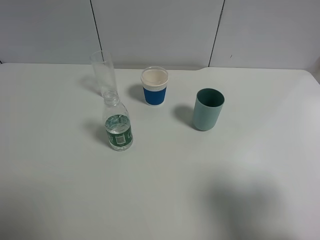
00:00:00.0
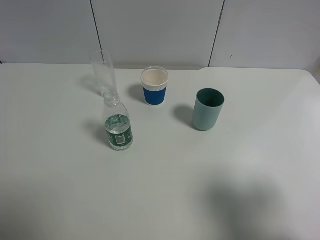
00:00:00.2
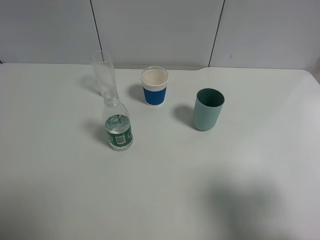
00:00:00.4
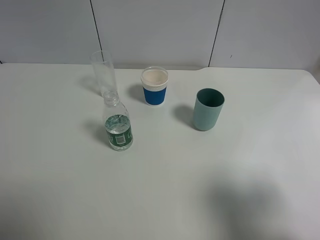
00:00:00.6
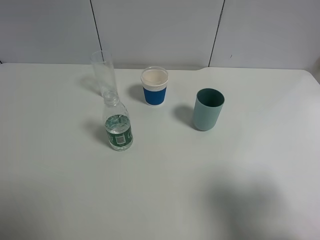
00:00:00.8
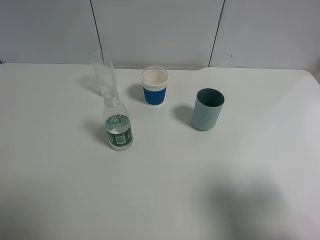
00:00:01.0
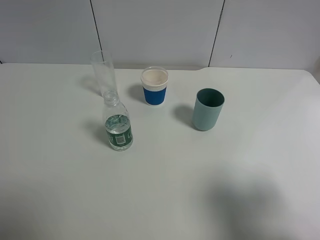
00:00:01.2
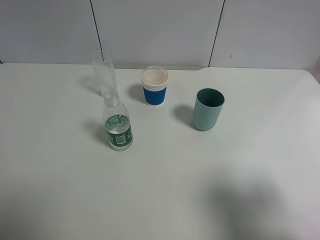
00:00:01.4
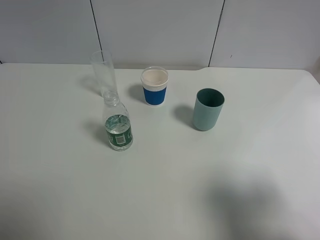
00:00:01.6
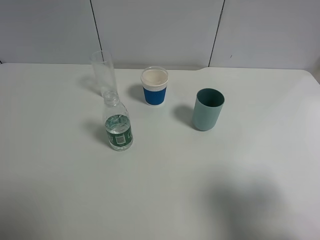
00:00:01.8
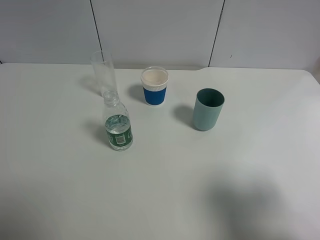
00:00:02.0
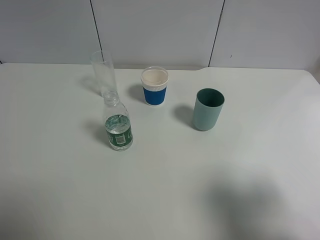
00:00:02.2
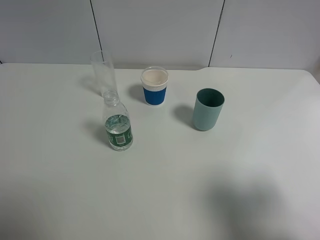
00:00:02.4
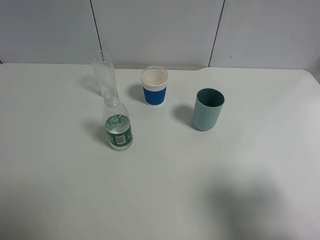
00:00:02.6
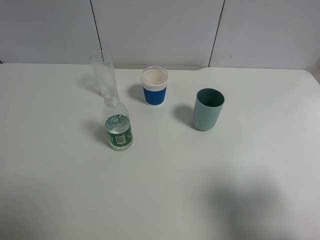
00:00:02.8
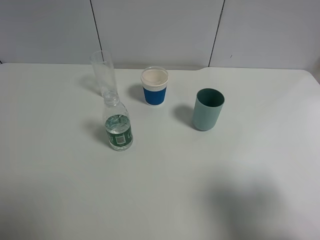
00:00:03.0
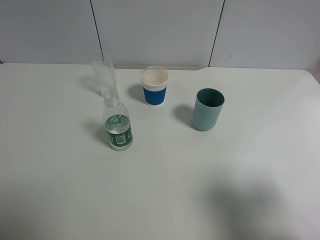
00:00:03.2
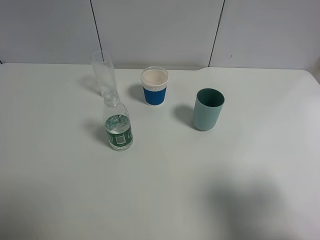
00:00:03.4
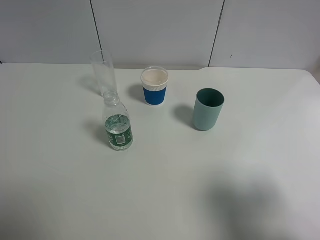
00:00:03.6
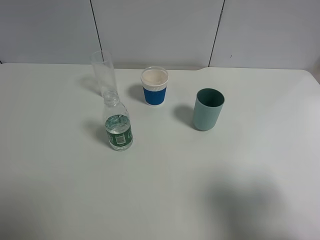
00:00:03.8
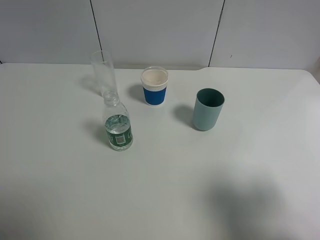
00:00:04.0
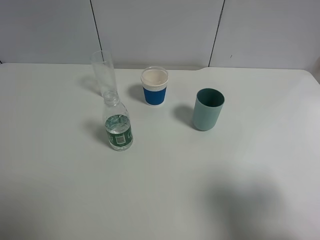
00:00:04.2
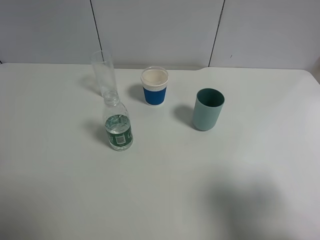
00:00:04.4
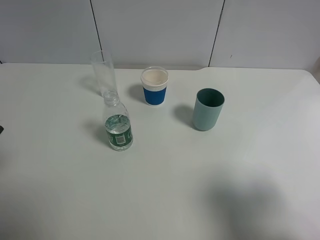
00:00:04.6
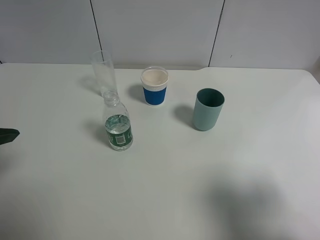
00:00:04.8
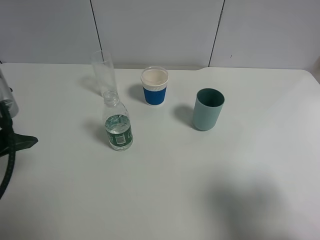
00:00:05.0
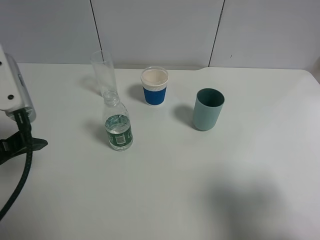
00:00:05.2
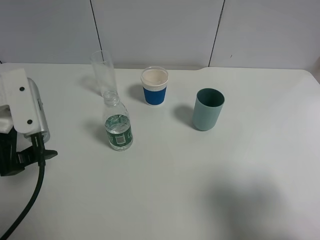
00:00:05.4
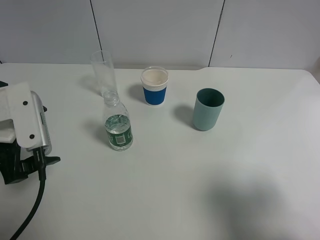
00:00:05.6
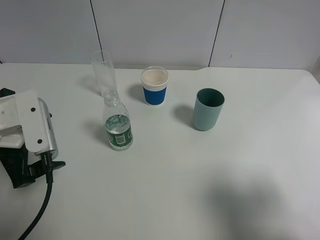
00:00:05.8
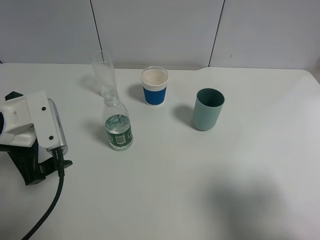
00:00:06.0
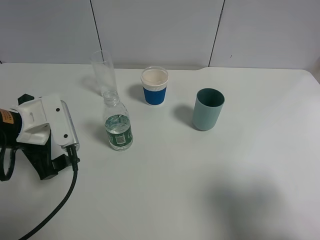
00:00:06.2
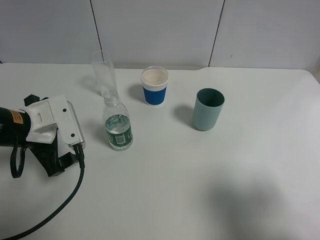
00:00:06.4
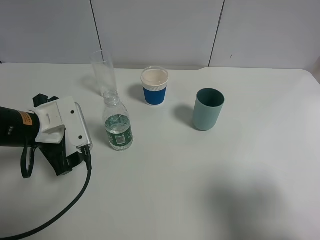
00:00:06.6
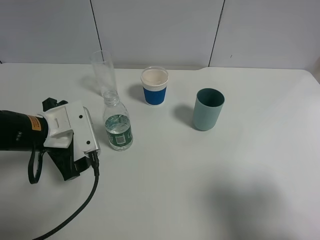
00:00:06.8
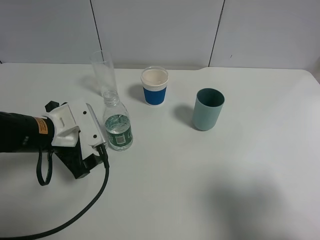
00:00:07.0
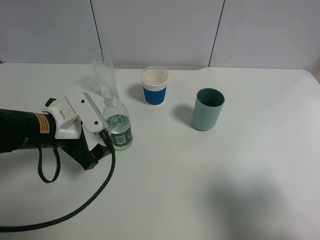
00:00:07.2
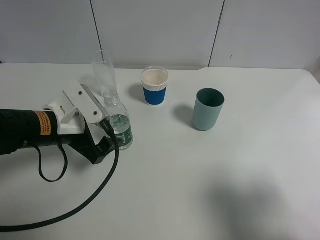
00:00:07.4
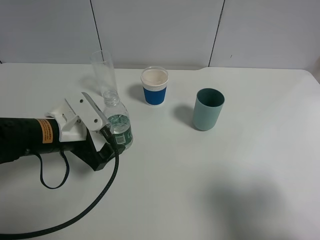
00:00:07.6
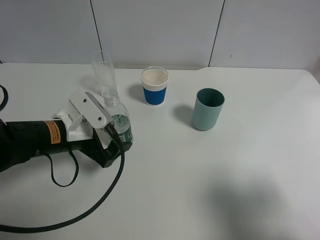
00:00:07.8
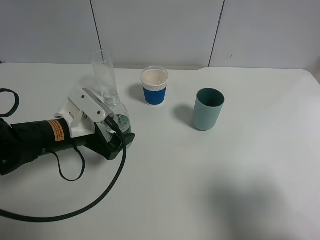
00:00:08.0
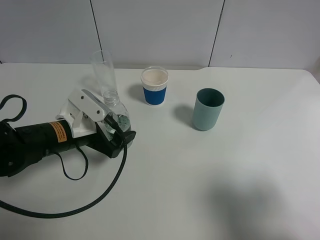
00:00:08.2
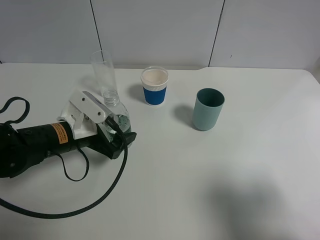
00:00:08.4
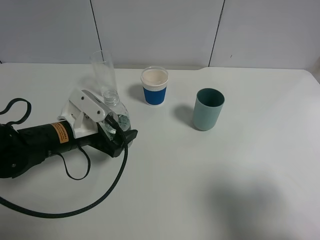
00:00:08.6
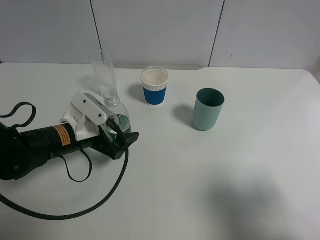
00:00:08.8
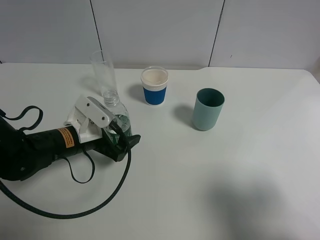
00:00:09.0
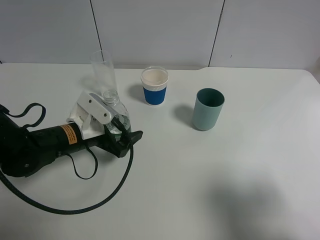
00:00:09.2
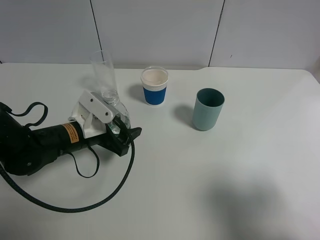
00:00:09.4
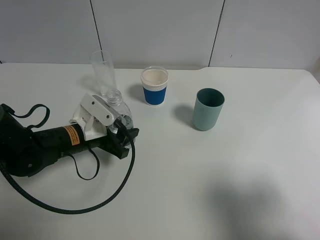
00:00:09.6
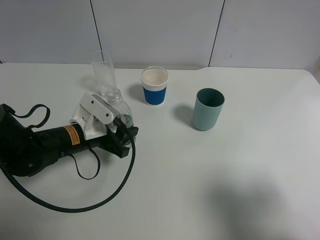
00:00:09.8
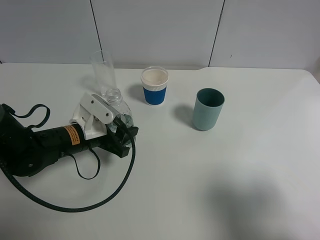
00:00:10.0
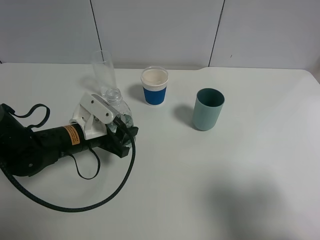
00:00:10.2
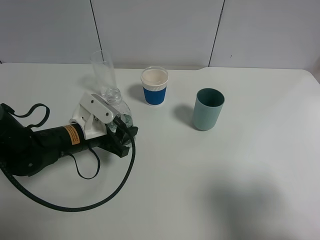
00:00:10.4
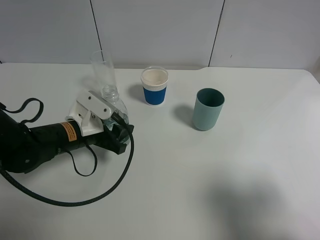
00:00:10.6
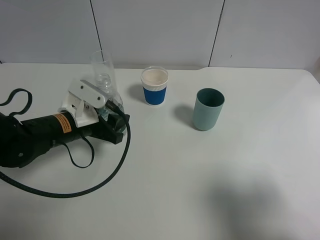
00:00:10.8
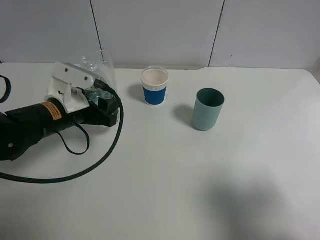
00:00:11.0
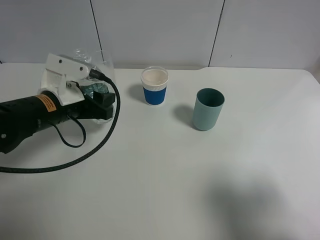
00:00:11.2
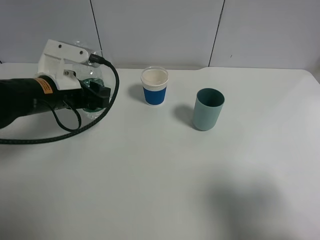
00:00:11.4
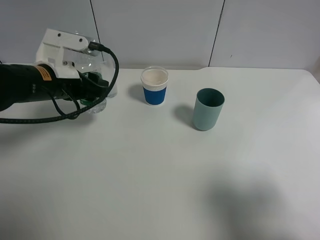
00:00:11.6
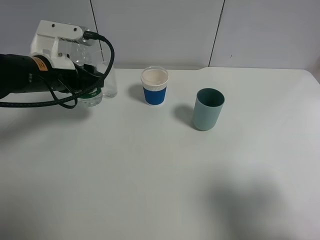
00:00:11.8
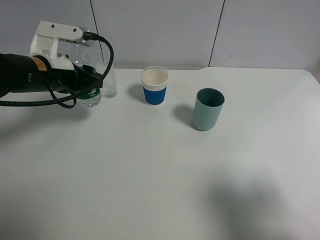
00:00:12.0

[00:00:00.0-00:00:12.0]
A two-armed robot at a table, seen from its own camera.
Task of the whole recording: use a gripper to hold the bottle of the drink and pour it into a random cup.
Step, 00:00:00.0 to 00:00:09.6: Grasp the mineral water bottle with the left gripper.
00:00:00.0 to 00:00:03.0: The two grippers keep their place.
00:00:04.4 to 00:00:06.0: The left gripper goes about 15 cm downward, forward and to the right.
00:00:06.0 to 00:00:07.6: The left gripper travels to the right by approximately 5 cm.
00:00:07.6 to 00:00:09.0: The left gripper ends up some 5 cm from where it was.
00:00:09.0 to 00:00:10.4: The left gripper closes its fingers.
00:00:10.4 to 00:00:12.0: The left gripper shifts some 10 cm upward and forward.

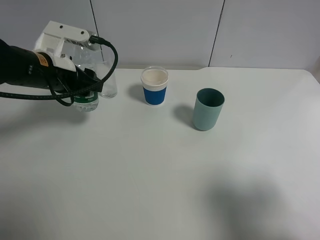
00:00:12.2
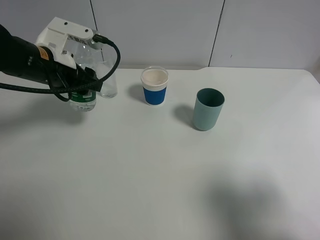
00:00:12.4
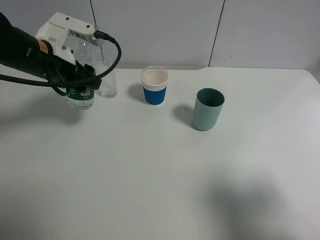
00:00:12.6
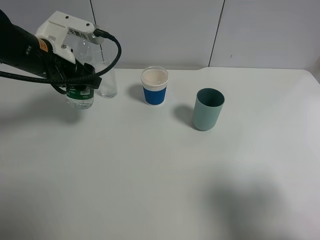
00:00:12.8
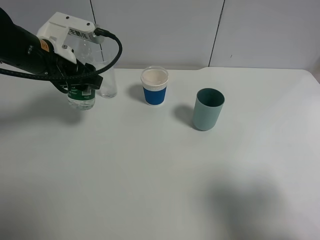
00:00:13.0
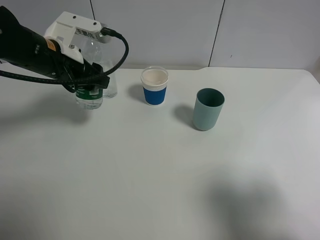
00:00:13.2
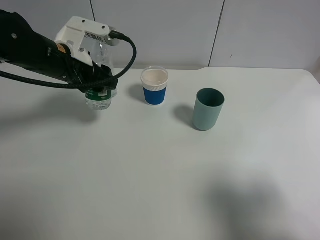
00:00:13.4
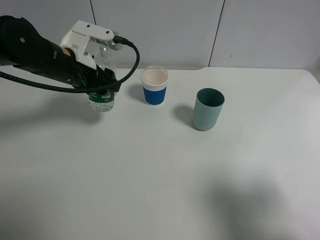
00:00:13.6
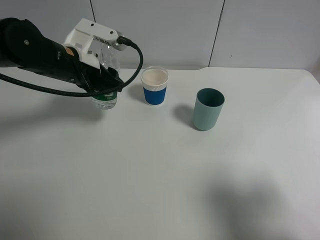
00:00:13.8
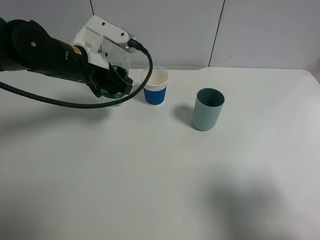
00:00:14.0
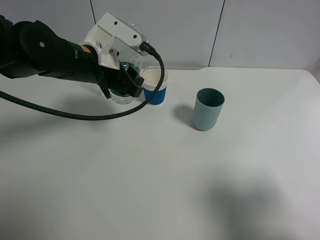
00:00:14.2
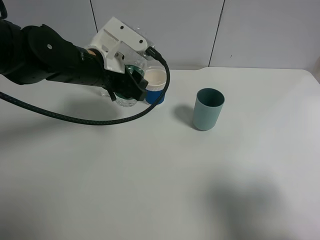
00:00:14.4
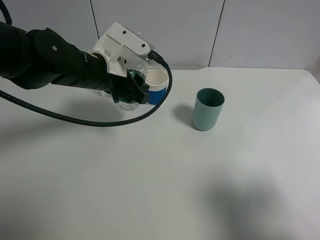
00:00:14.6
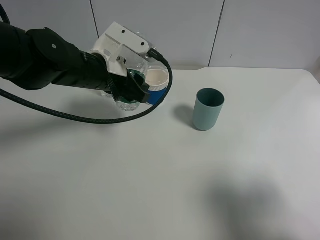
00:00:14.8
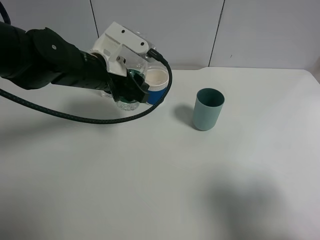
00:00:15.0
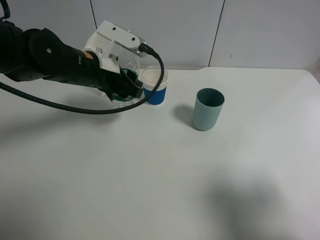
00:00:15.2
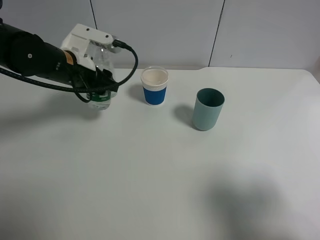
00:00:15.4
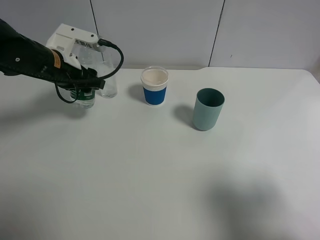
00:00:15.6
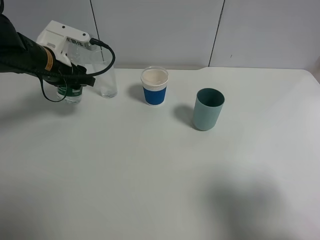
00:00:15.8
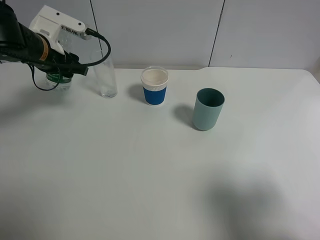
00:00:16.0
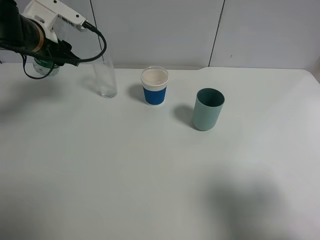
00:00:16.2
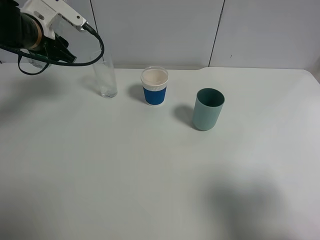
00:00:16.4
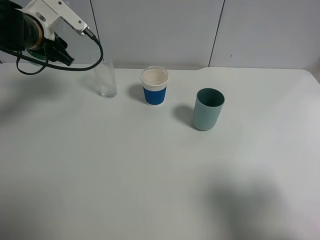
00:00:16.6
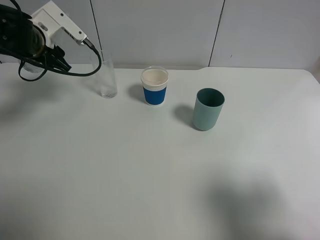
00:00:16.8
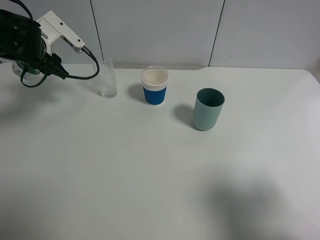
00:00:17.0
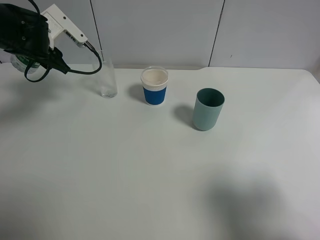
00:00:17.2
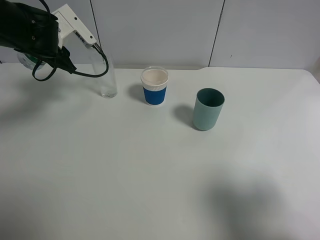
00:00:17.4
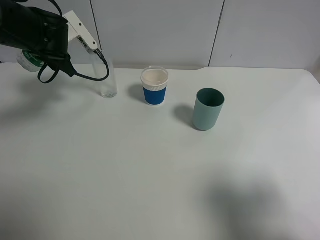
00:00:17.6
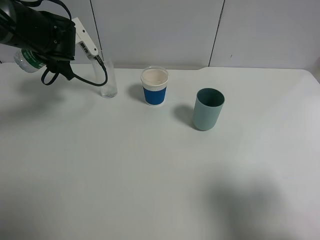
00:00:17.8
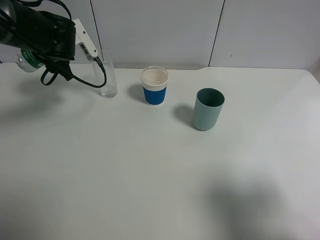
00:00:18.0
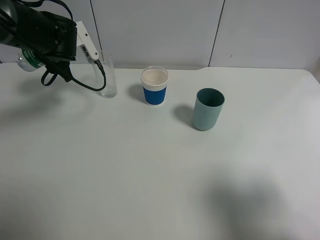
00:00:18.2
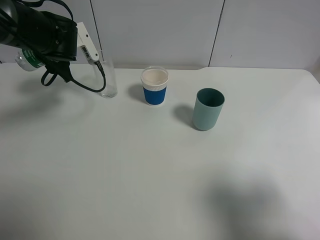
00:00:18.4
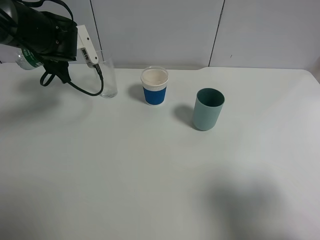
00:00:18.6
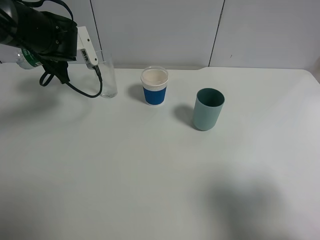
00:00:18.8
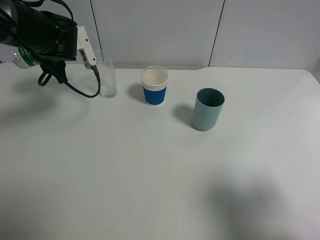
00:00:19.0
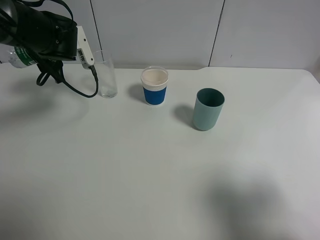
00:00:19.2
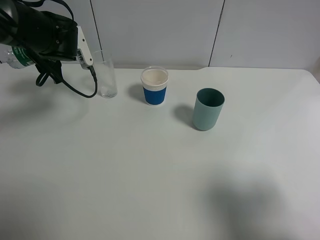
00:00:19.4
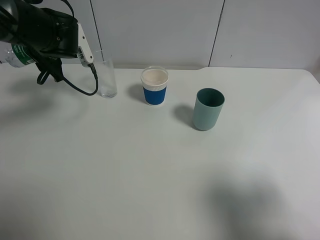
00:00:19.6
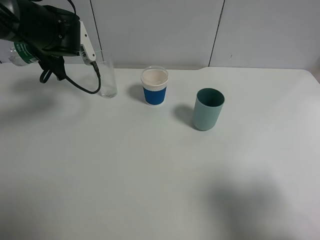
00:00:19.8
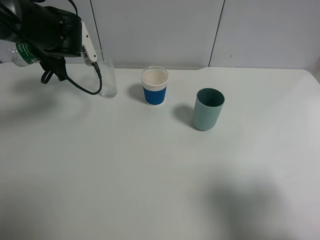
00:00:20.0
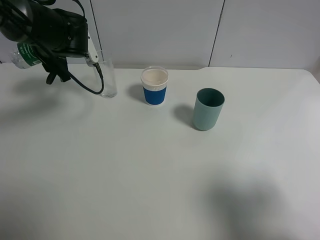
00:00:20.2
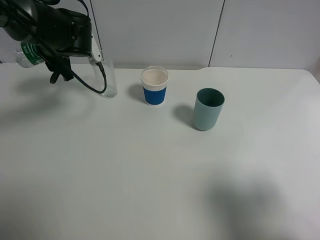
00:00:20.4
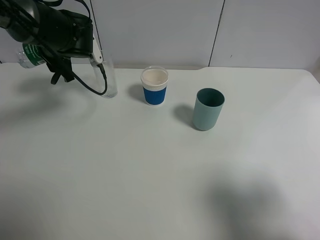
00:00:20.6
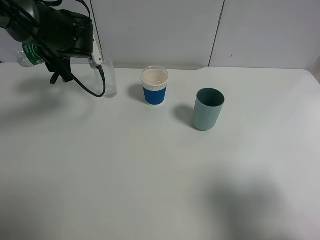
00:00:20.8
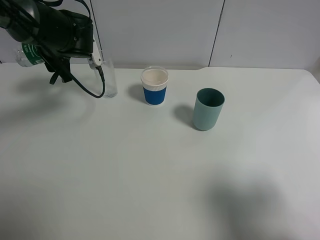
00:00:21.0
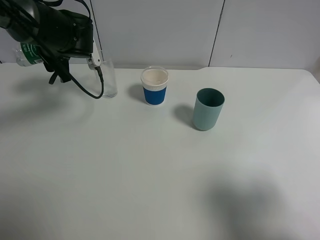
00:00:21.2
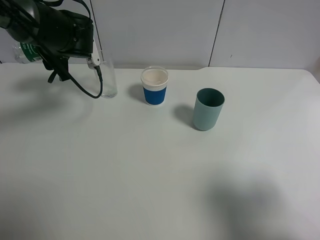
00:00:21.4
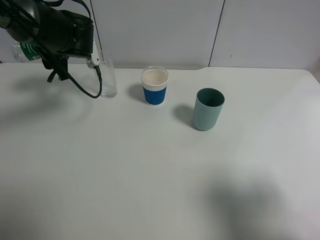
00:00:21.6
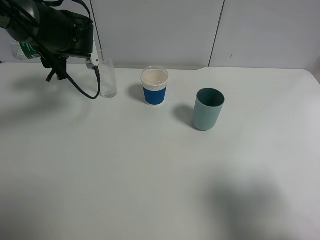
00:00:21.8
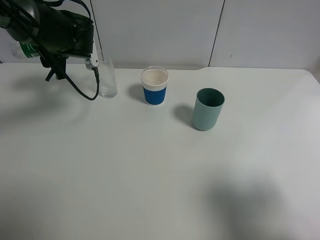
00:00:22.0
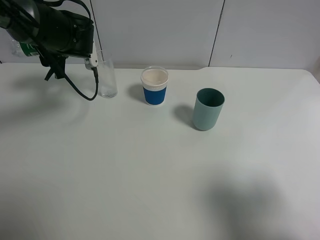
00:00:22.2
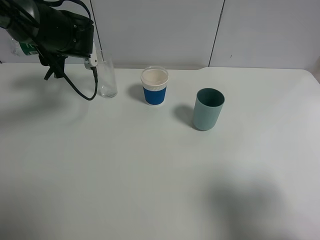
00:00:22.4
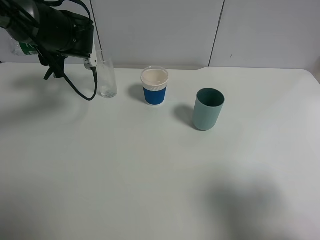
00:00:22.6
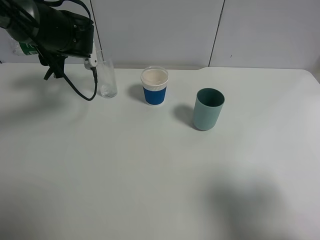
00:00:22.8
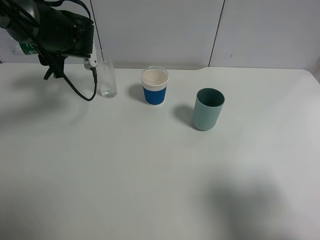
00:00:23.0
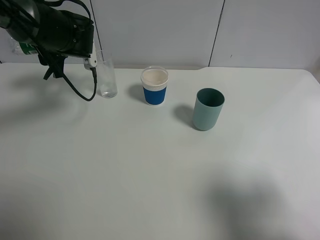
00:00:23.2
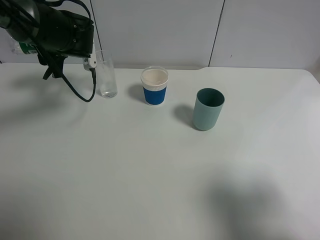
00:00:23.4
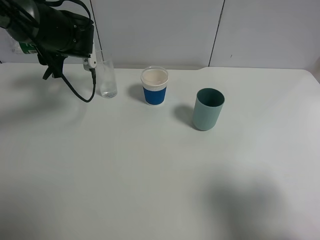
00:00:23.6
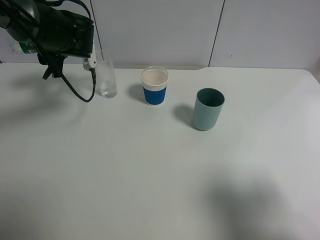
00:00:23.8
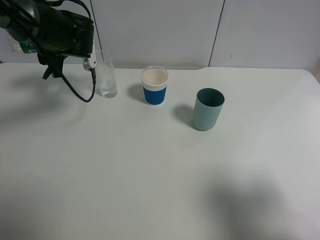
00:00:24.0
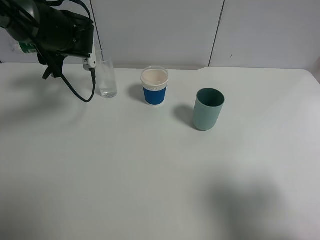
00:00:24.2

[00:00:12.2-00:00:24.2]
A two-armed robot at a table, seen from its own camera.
Task of the whole recording: use a gripper to hold the bottle of the drink and pour it into a random cup.
00:00:12.2 to 00:00:13.8: The grippers stay close to where they were, moving slightly.
00:00:13.8 to 00:00:15.2: The grippers stay close to where they were, moving slightly.
00:00:15.2 to 00:00:16.6: The left gripper shifts roughly 10 cm to the left and forward.
00:00:18.2 to 00:00:21.2: There are only small adjustments of the grippers.
00:00:21.2 to 00:00:22.6: There are only small adjustments of the grippers.
00:00:22.6 to 00:00:24.2: Neither gripper changes place.
